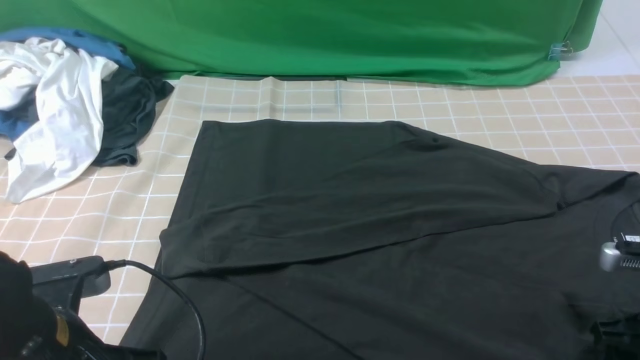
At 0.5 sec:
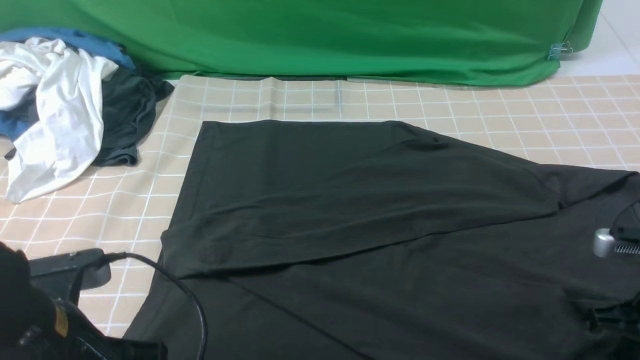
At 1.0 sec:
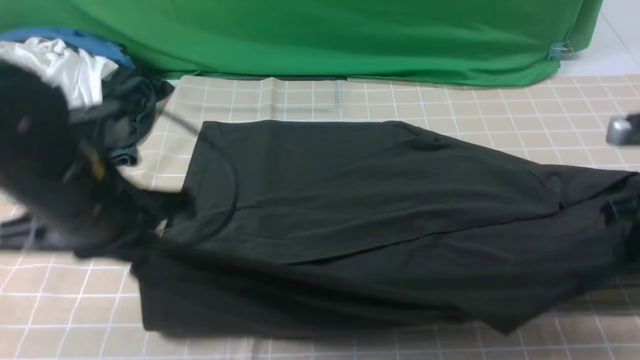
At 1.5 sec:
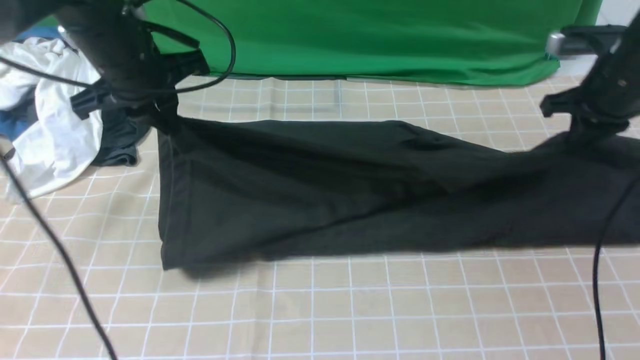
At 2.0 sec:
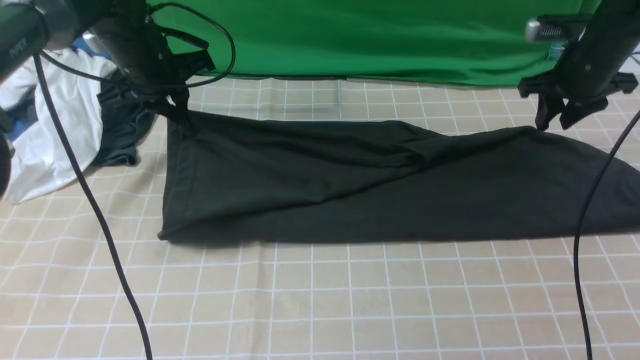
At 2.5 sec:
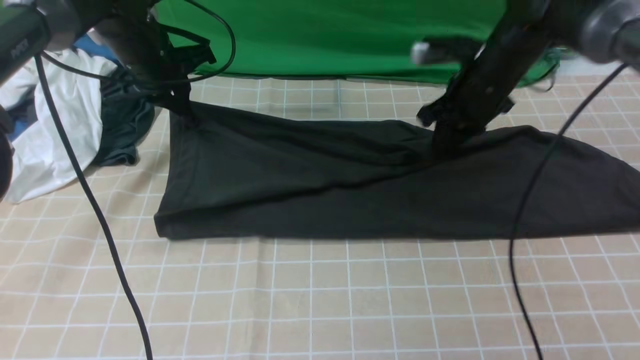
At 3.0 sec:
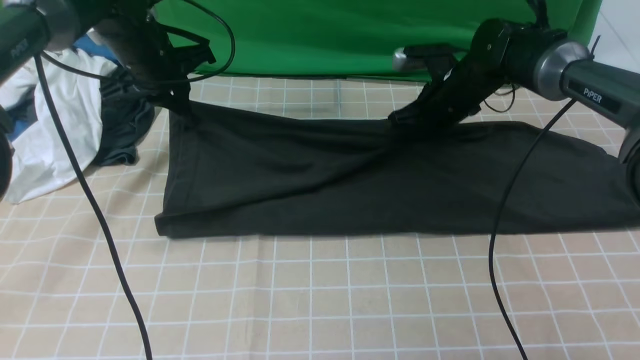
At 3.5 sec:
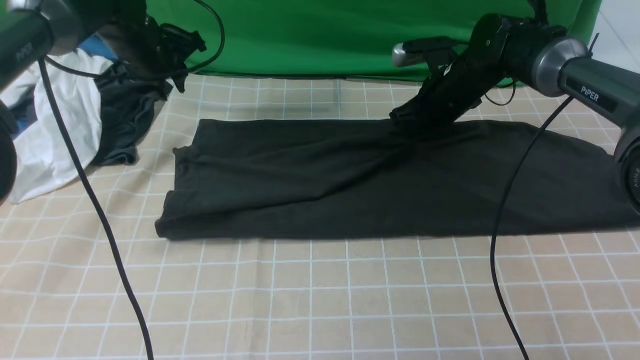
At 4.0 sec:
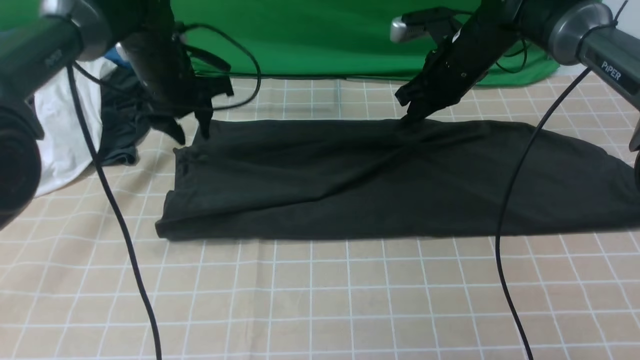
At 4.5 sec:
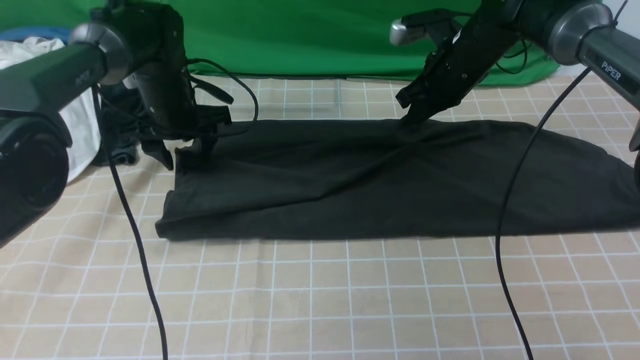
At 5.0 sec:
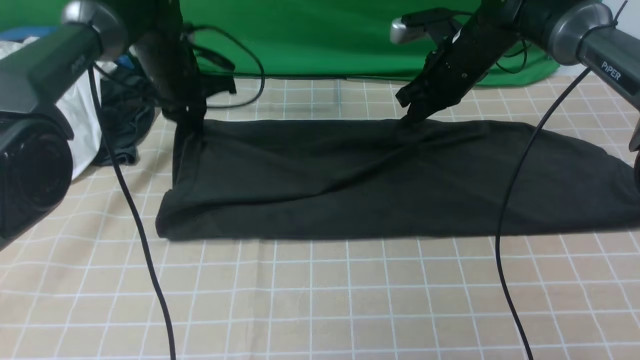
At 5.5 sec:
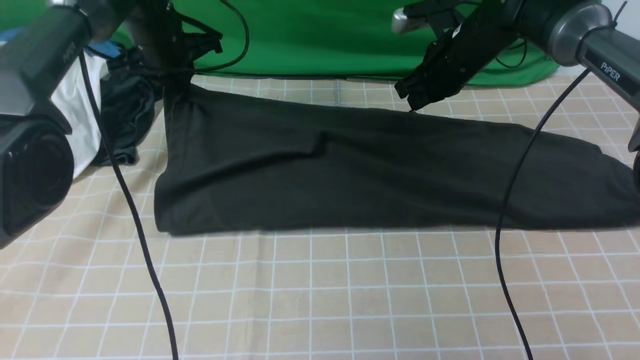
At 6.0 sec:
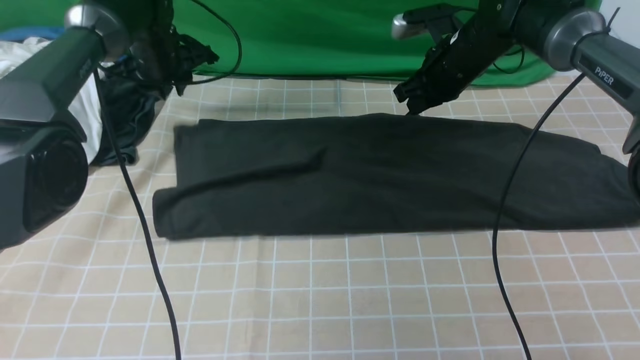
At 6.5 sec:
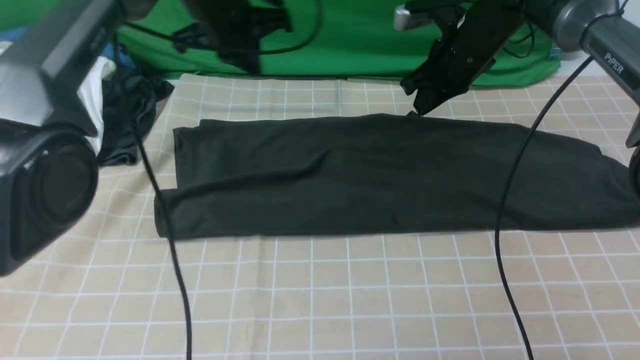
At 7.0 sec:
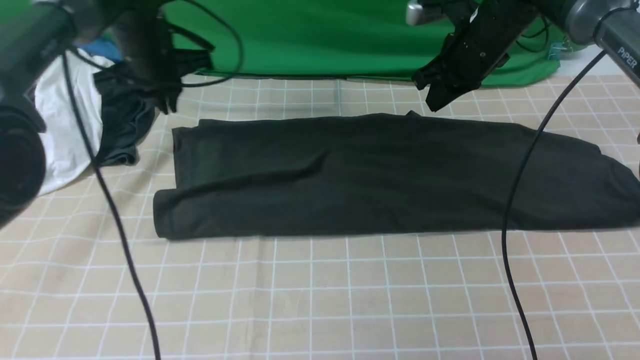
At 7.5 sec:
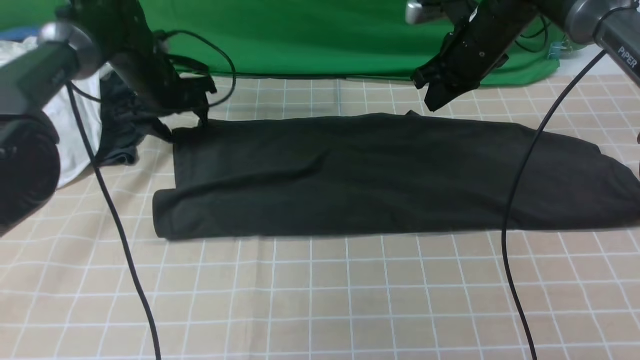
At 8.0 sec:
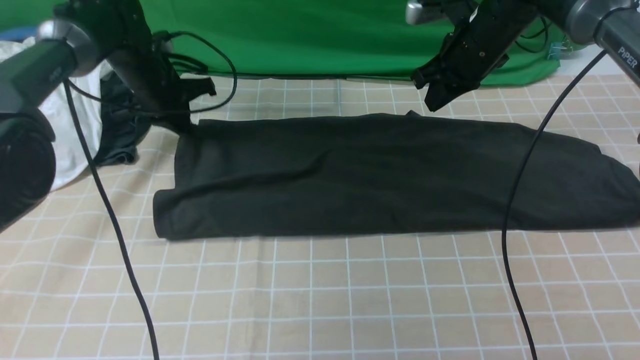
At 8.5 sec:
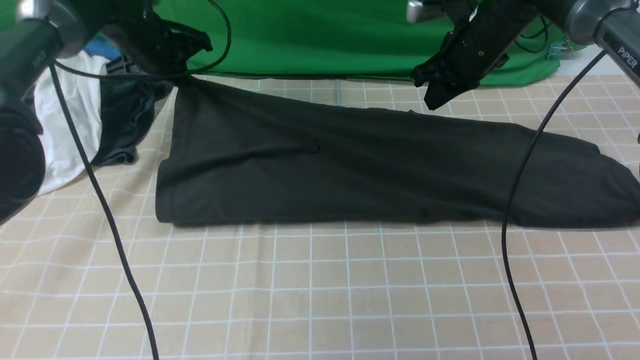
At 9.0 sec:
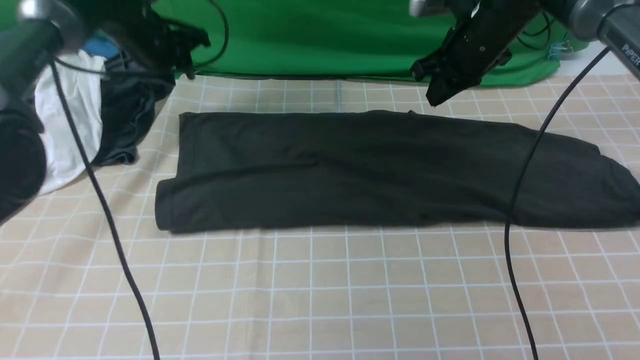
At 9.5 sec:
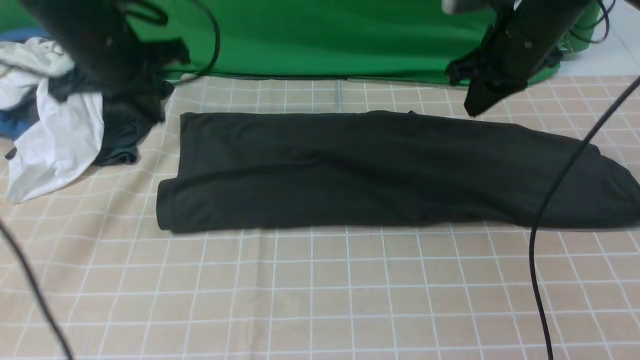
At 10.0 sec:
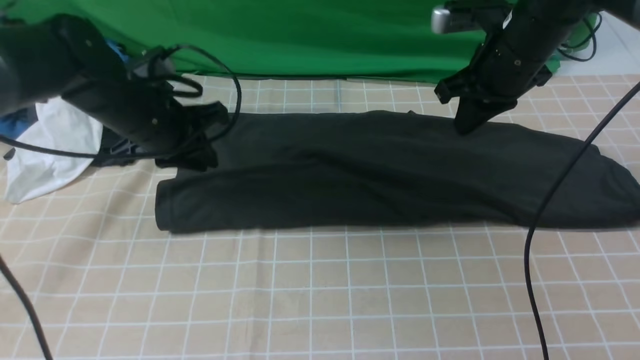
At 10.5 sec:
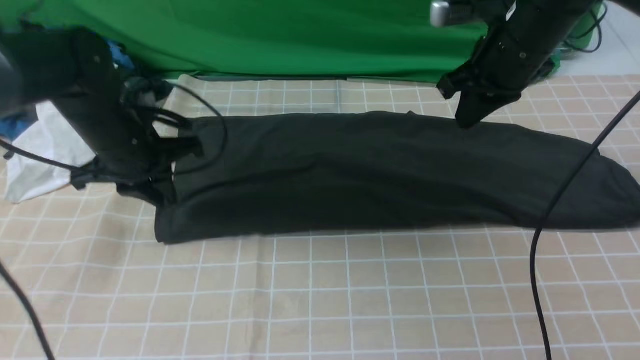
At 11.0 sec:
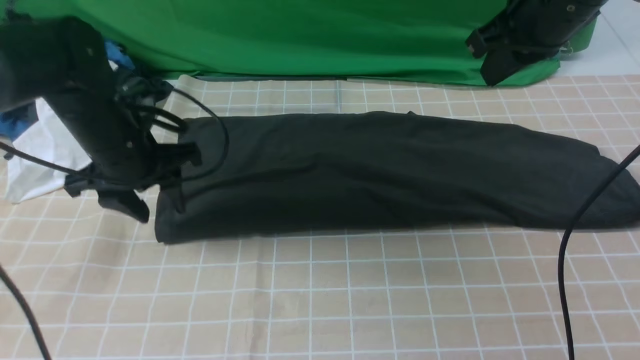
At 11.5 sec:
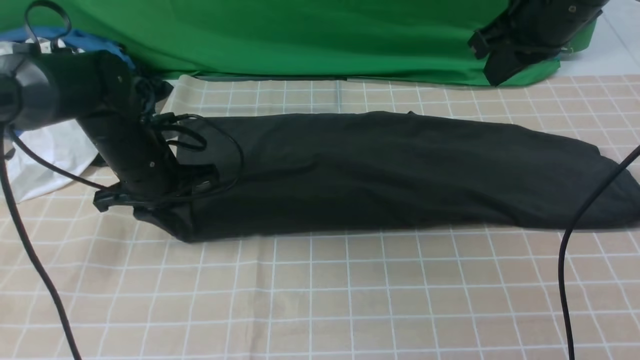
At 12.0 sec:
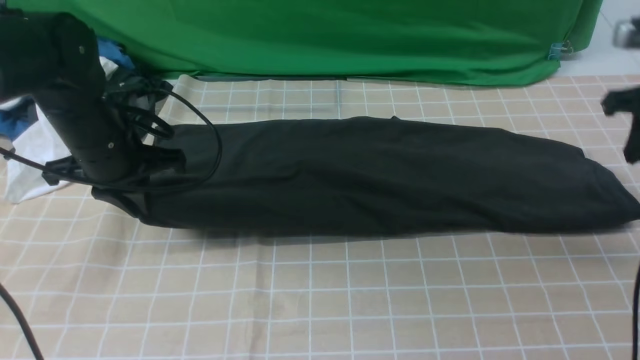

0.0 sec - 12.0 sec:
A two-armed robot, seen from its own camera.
Step, 0.5 sec - 8.5 sec: use both arms to drag the lower edge of the fabric forward and fold it over the upper edge.
0.0 sec - 2.0 sec: The two grippers go roughly 30 cm forward. The right gripper closes.
2.0 sec - 4.0 sec: The right gripper travels to the left by some 15 cm. The left gripper opens.
4.0 sec - 6.0 sec: The left gripper heads forward, covering some 5 cm, and closes, then reopens.
6.0 sec - 8.0 sec: The left gripper travels to the right and back again, some 10 cm each way, and closes.
8.0 sec - 10.0 sec: The right gripper is displaced backward by approximately 5 cm. Meanwhile the left gripper goes some 15 cm backward.
10.0 sec - 12.0 sec: The right gripper moves to the right, about 15 cm, and opens up; the left gripper opens and closes again.

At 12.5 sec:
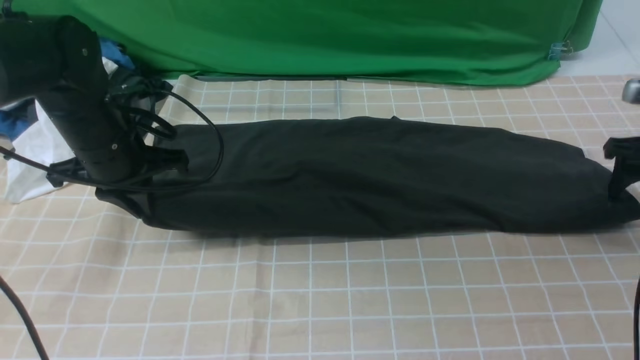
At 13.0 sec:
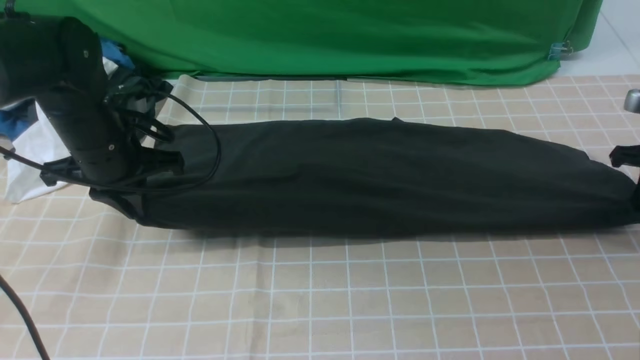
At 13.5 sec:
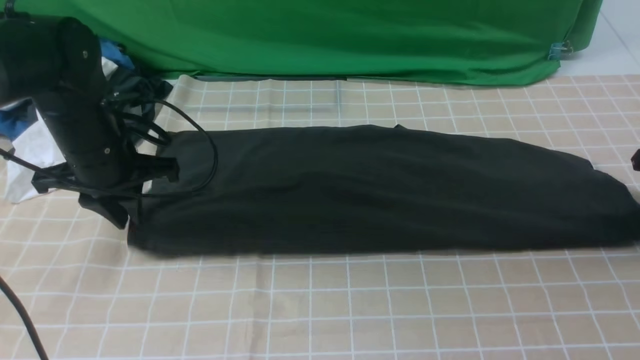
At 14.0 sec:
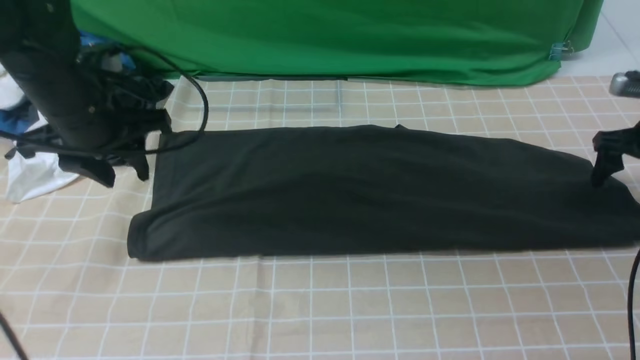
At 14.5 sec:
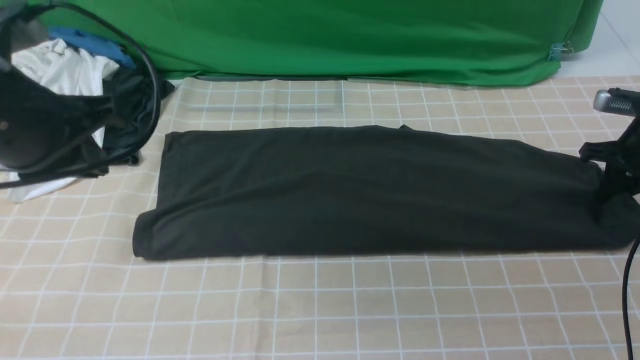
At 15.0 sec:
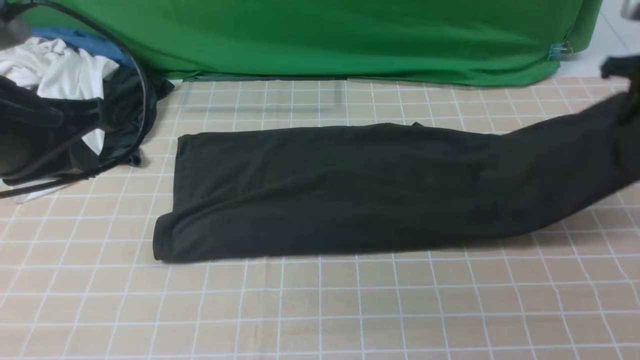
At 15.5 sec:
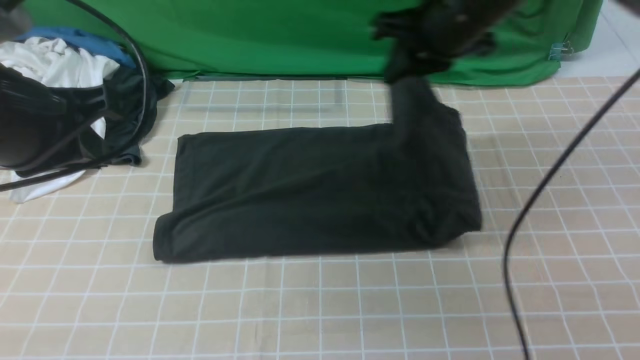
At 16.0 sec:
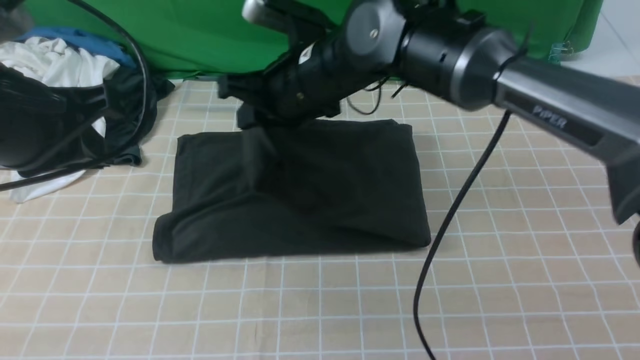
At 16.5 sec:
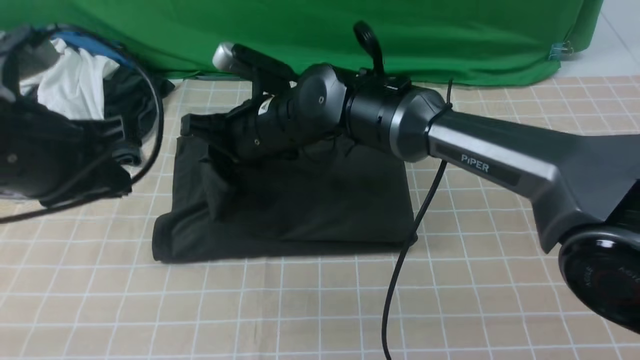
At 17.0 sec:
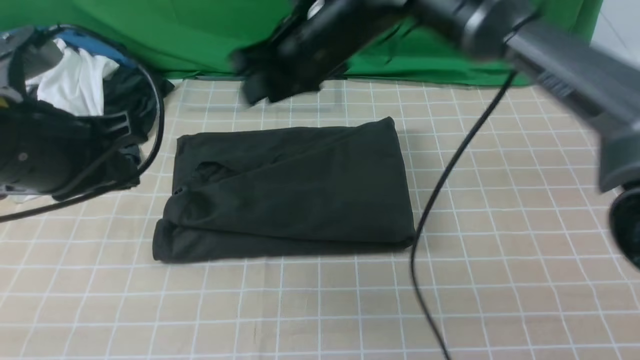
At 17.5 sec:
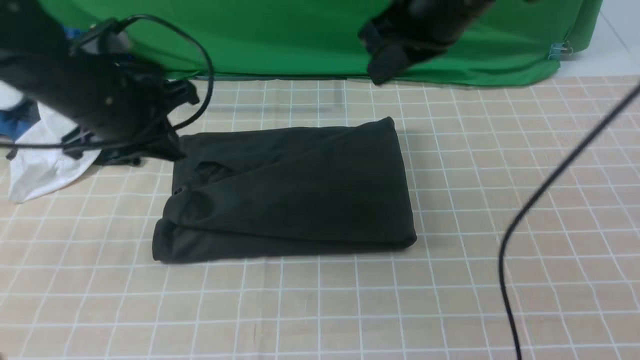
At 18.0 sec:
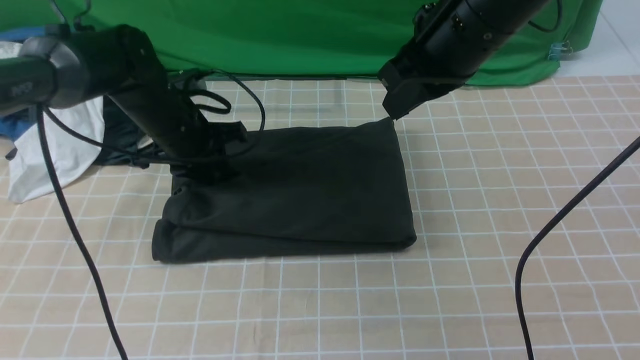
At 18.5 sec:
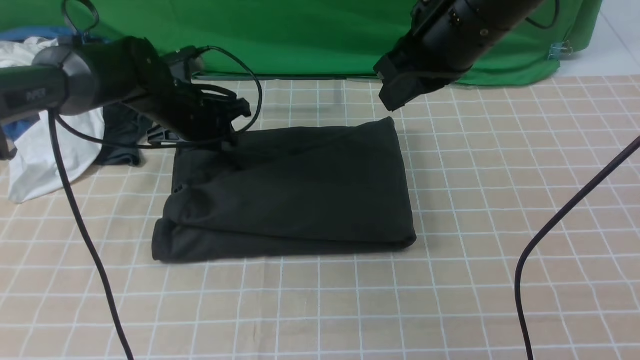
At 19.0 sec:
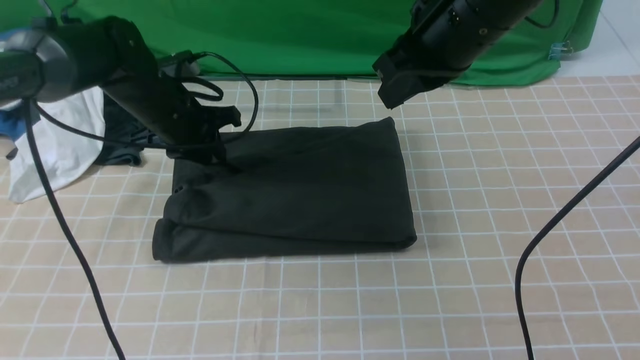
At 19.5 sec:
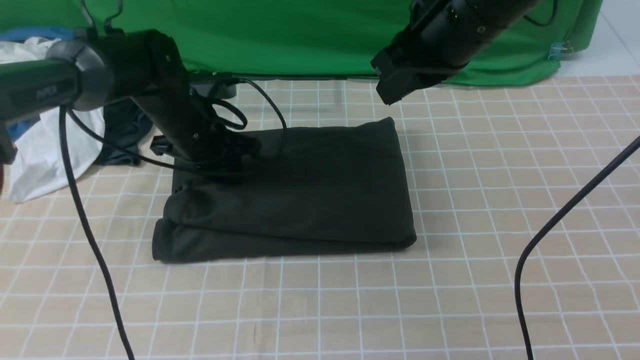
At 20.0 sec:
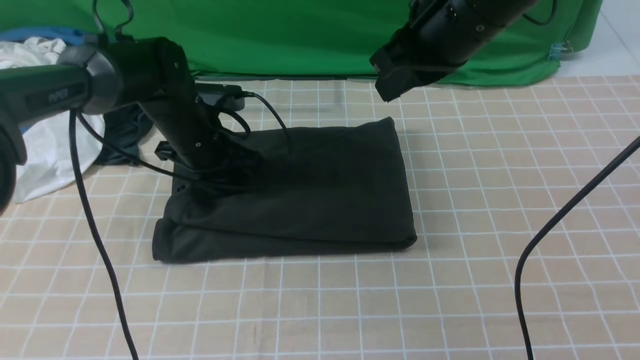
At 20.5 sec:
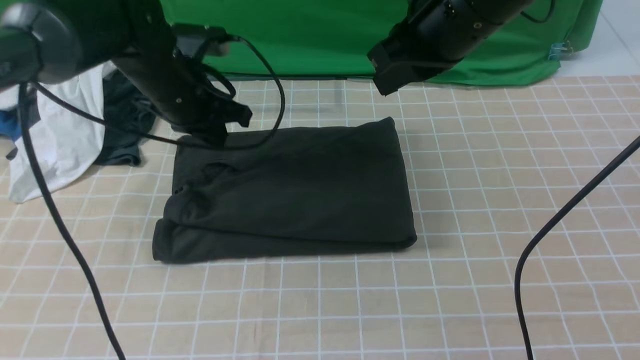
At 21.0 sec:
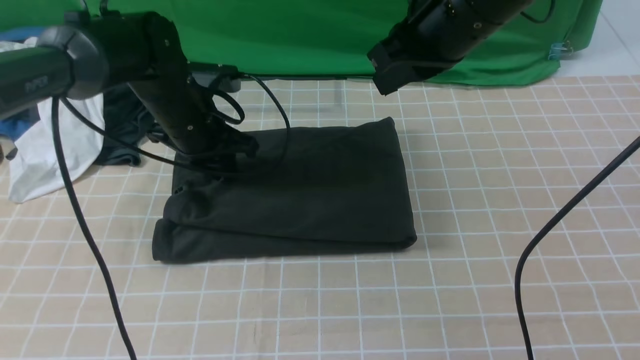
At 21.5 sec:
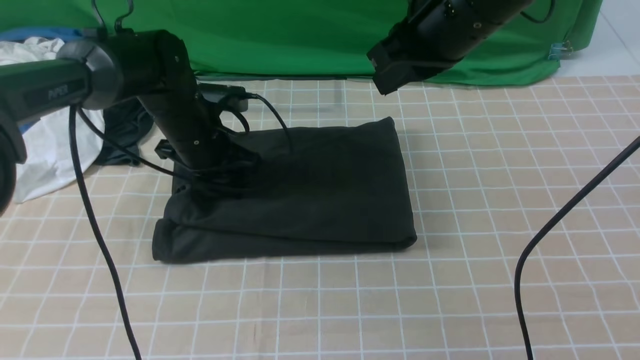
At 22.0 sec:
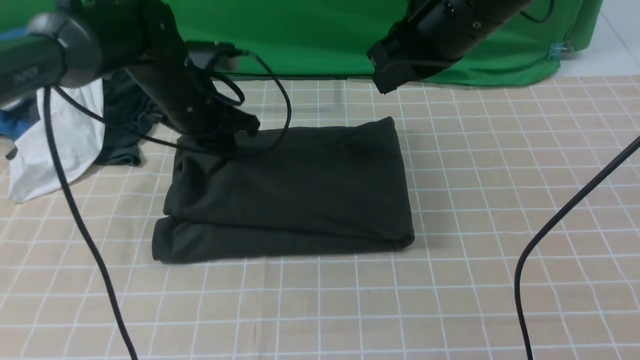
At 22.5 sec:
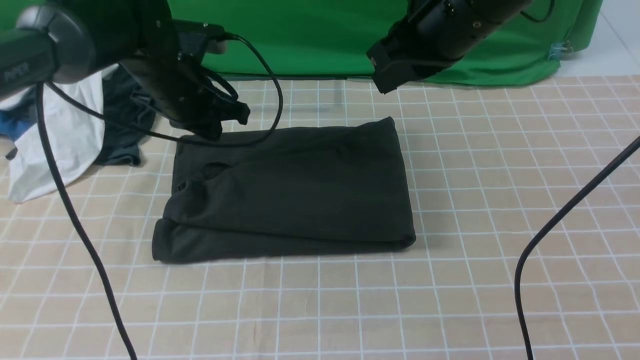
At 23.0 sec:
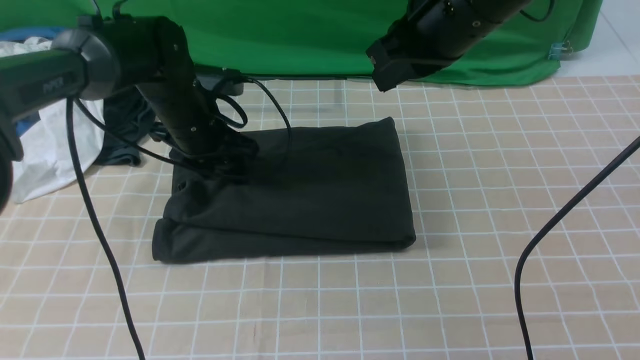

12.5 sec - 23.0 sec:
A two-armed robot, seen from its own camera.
Step, 12.5 sec - 14.5 sec: use the right arm to clamp the right edge of the fabric.
Step, 15.0 sec - 16.5 sec: use the right arm to drag the right edge of the fabric to the left and folds it over the left edge.
12.5 sec - 14.5 sec: The right gripper closes up. The left gripper travels upward and backward by about 15 cm, and opens and closes again.
14.5 sec - 16.5 sec: The right gripper shifts approximately 50 cm to the left.
16.5 sec - 19.0 sec: The left gripper goes about 25 cm forward and downward, and opens up, while the right gripper shifts some 20 cm to the right and upward, and closes up.
19.0 sec - 21.0 sec: The left gripper closes, then opens again.
21.0 sec - 23.0 sec: The left gripper opens.
